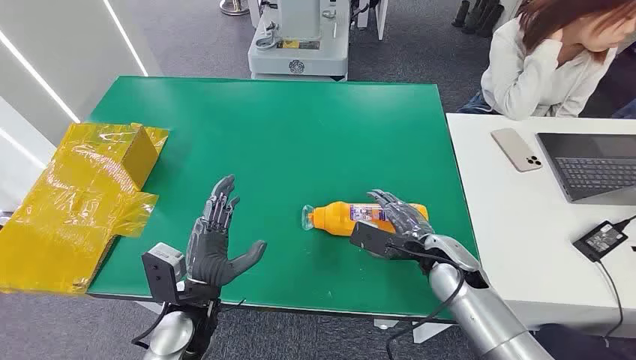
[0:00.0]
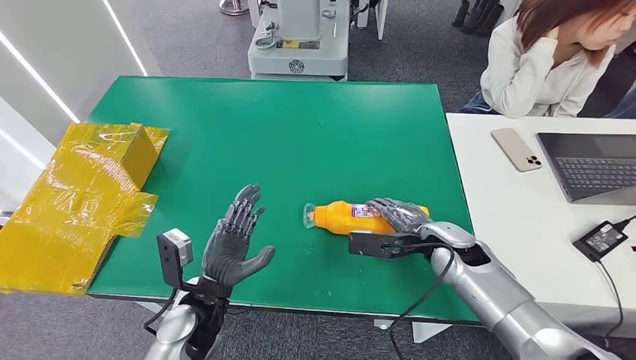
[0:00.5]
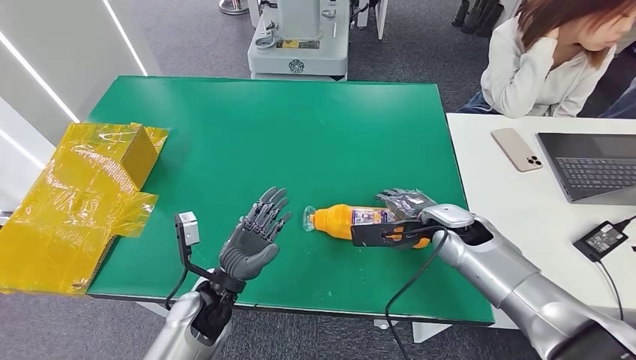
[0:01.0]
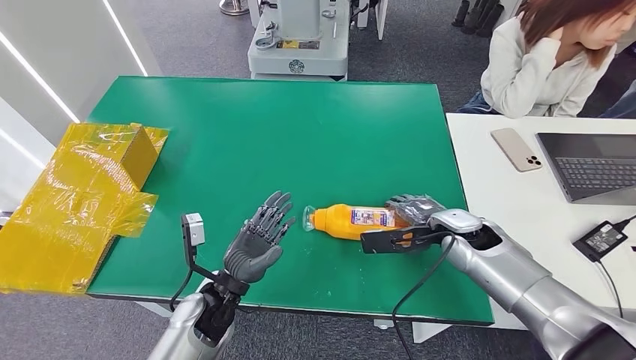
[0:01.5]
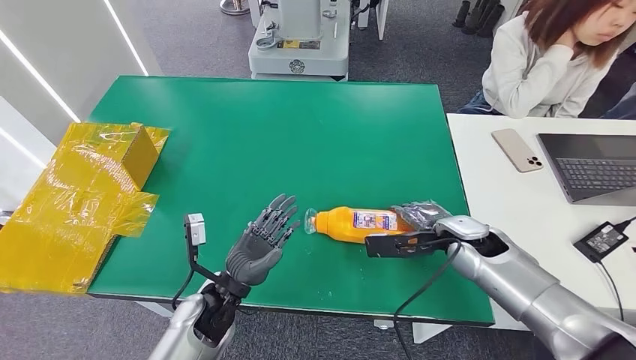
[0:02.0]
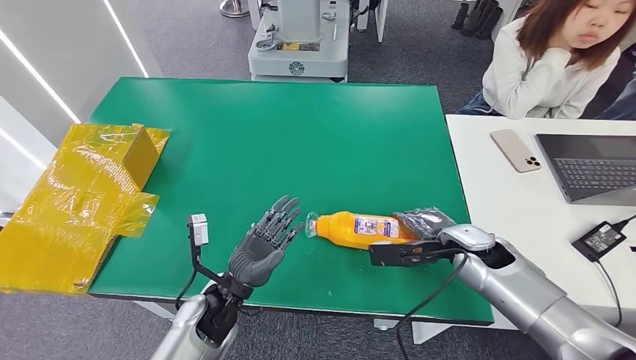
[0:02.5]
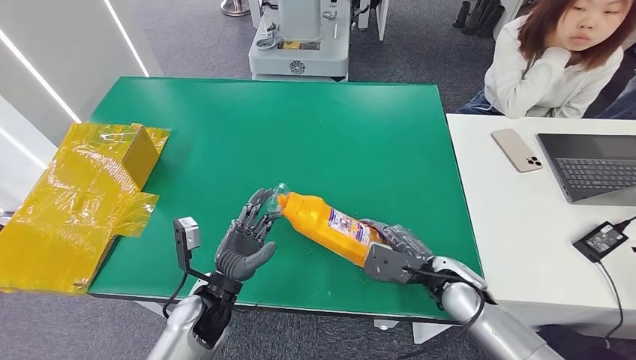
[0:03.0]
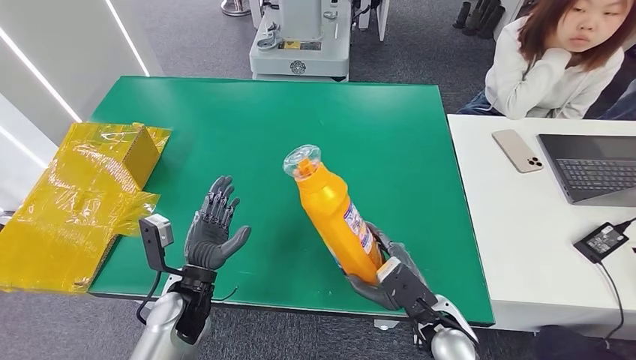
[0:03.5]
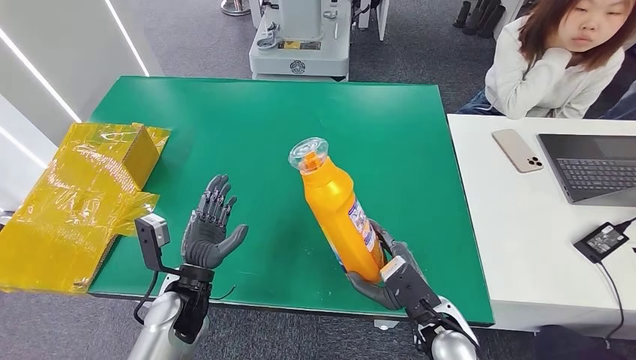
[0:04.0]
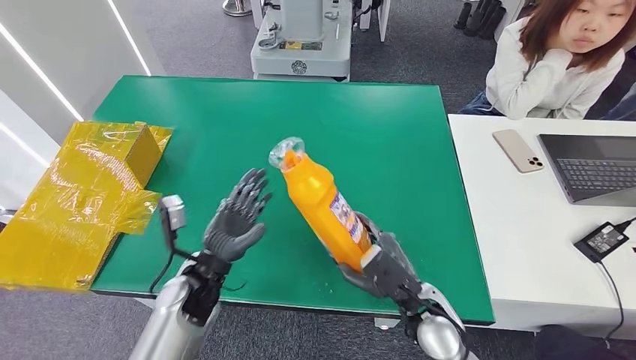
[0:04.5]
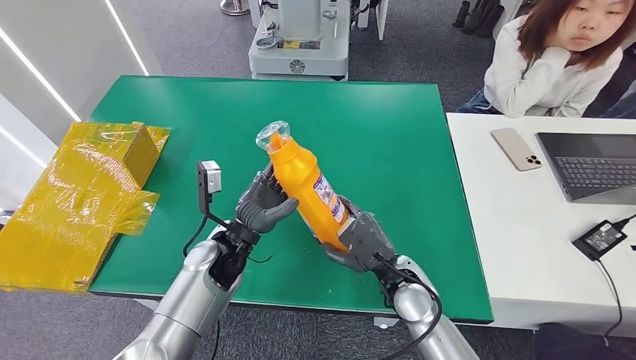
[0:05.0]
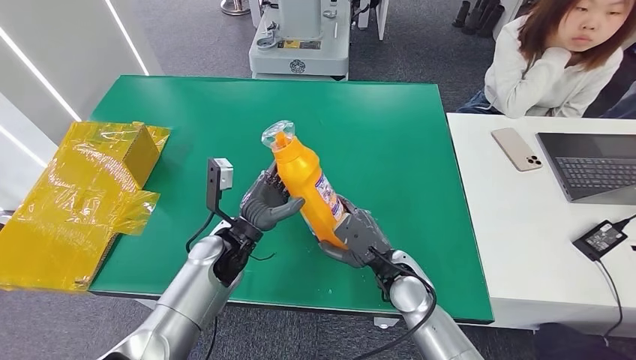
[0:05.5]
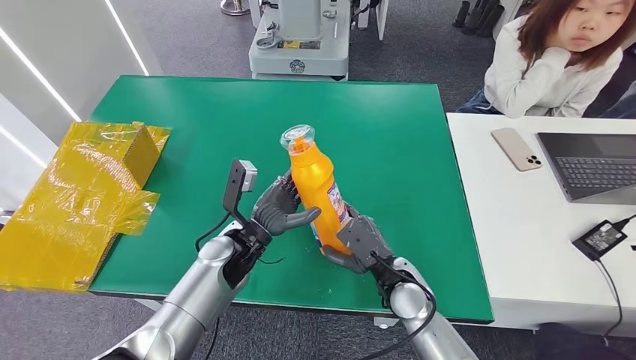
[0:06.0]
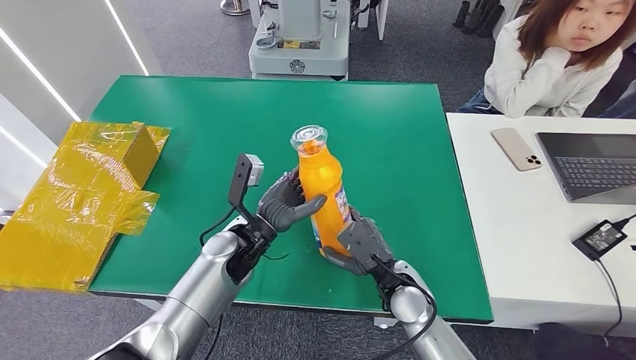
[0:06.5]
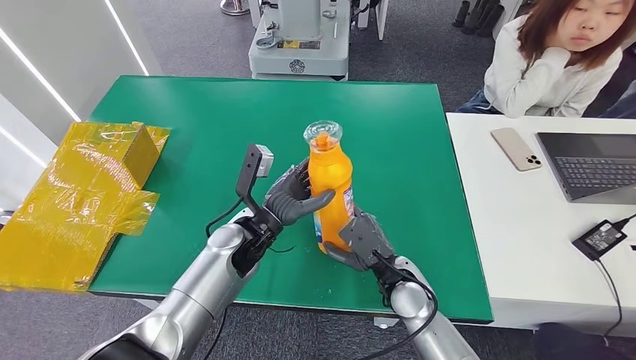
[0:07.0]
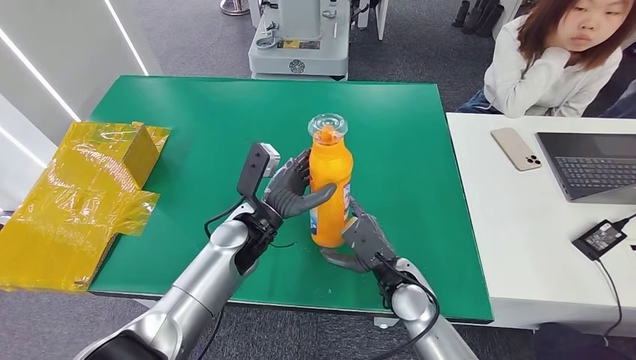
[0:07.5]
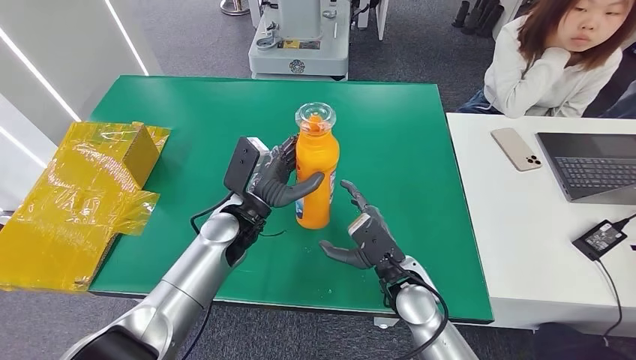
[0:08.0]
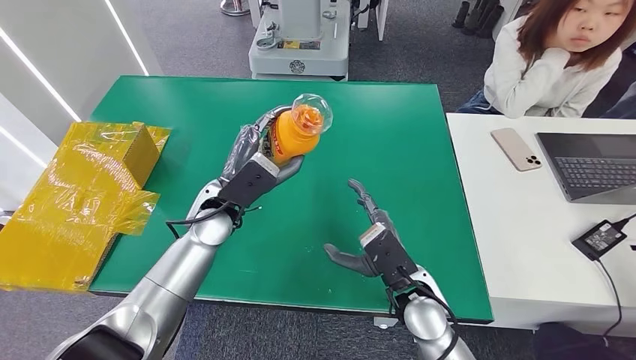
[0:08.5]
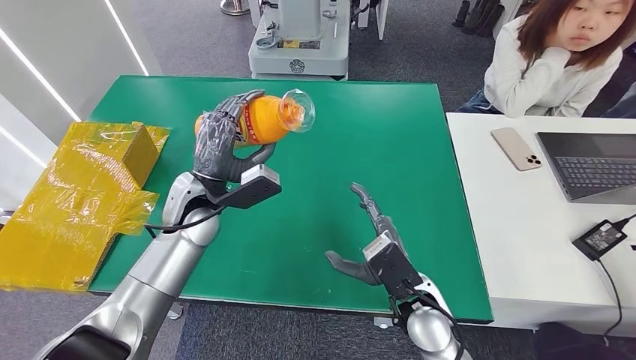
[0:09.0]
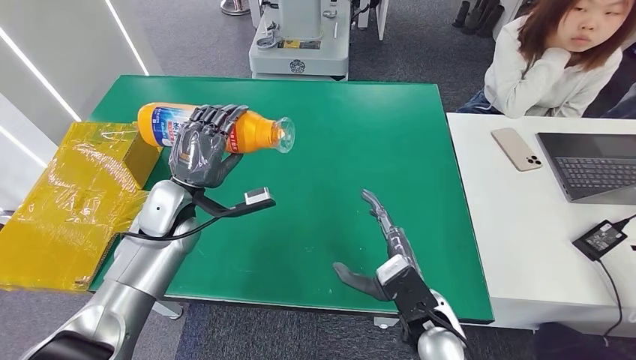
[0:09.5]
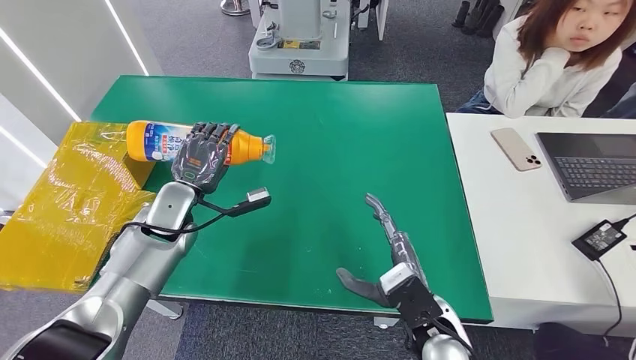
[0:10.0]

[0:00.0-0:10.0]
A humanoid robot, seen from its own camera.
Step, 0:00.0 to 0:03.0: Pick up the bottle from the table.
Step, 0:04.0 to 0:10.0: Turn the bottle to the front side.
0:02.0 to 0:04.0: The right hand is displaced backward, to the left and downward by roughly 20 cm.
0:04.0 to 0:06.0: The left hand travels forward and to the right by about 10 cm; the right hand heads forward, covering approximately 5 cm.
0:06.0 to 0:08.0: The left hand shifts by roughly 5 cm.
0:08.0 to 0:10.0: The left hand shifts roughly 10 cm to the left. The right hand travels backward by some 5 cm.
